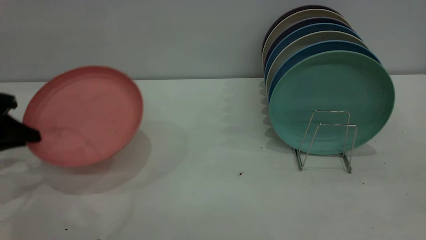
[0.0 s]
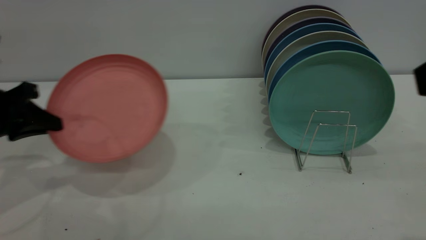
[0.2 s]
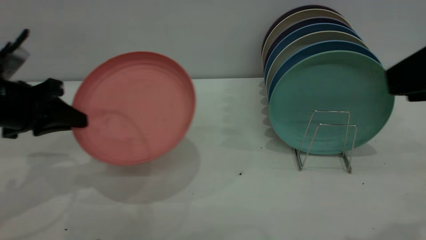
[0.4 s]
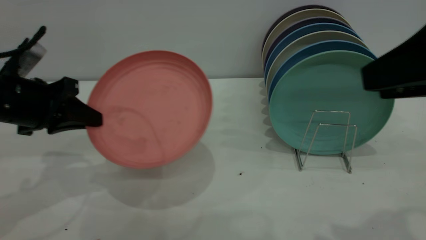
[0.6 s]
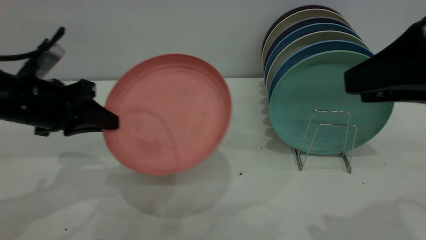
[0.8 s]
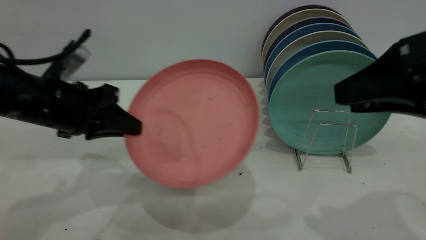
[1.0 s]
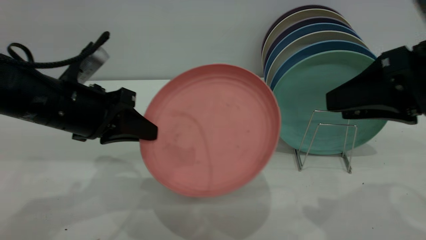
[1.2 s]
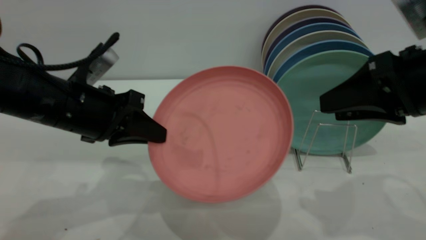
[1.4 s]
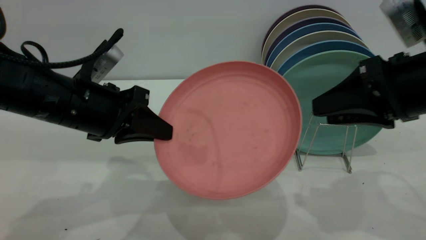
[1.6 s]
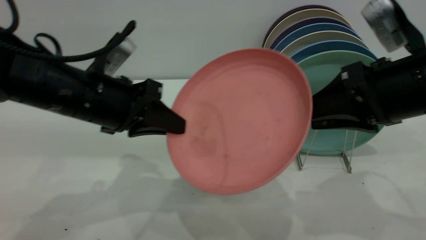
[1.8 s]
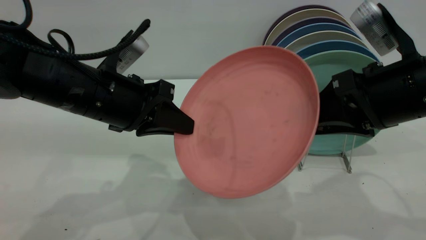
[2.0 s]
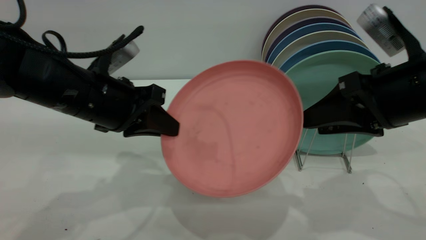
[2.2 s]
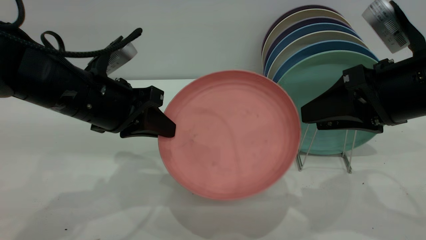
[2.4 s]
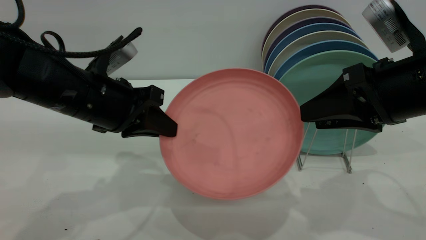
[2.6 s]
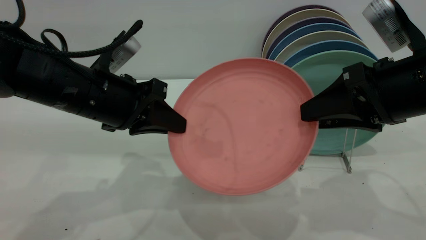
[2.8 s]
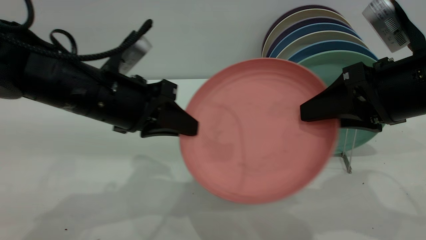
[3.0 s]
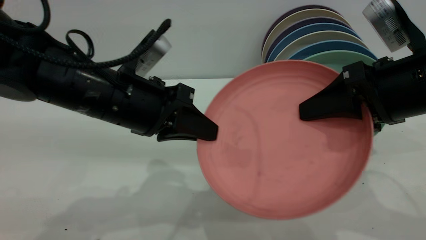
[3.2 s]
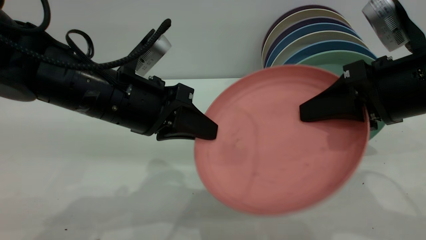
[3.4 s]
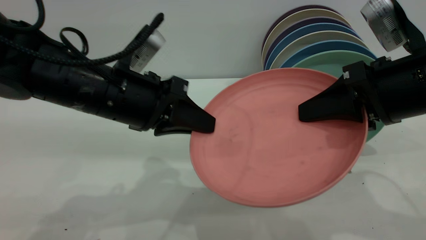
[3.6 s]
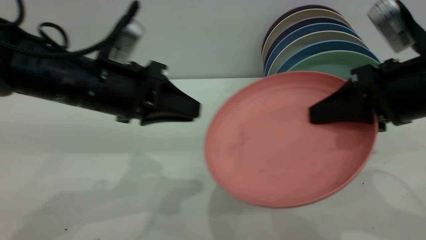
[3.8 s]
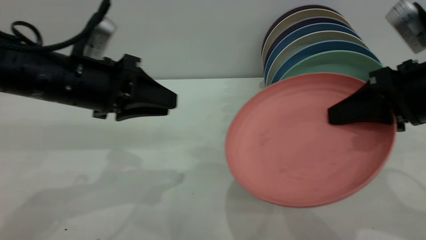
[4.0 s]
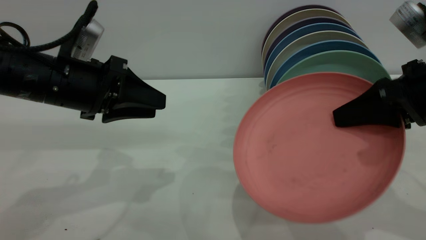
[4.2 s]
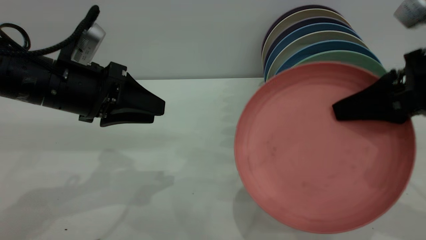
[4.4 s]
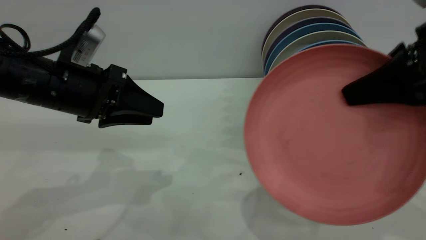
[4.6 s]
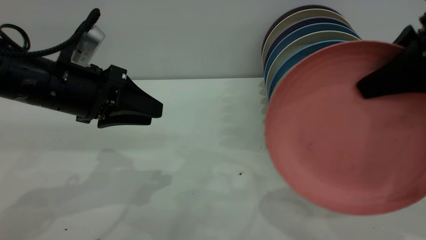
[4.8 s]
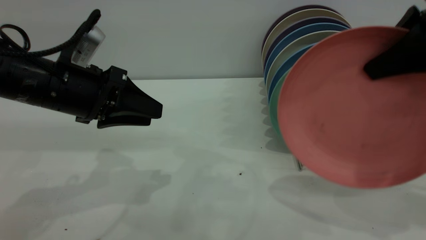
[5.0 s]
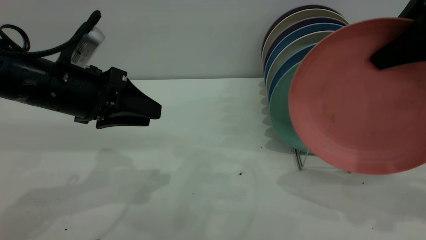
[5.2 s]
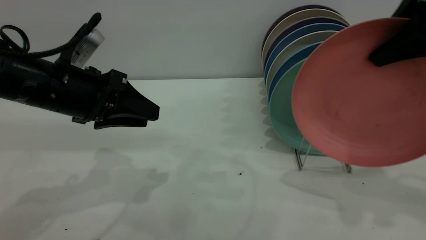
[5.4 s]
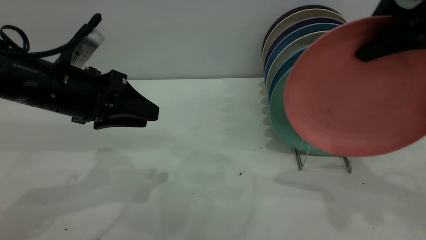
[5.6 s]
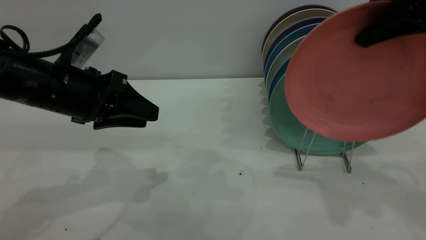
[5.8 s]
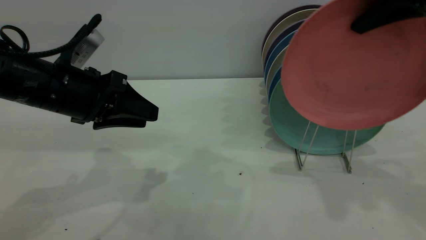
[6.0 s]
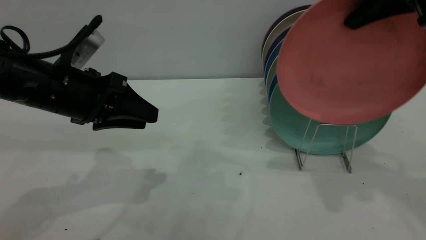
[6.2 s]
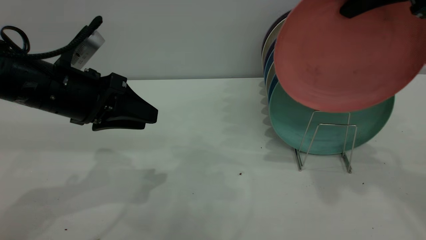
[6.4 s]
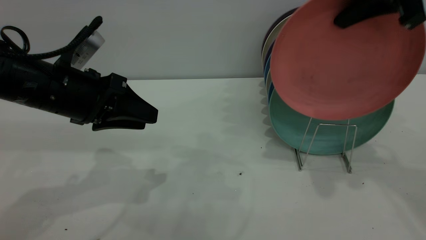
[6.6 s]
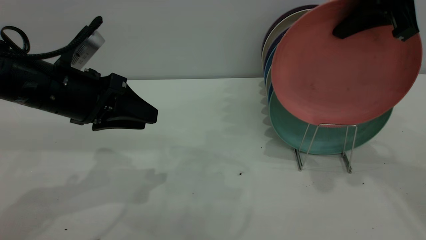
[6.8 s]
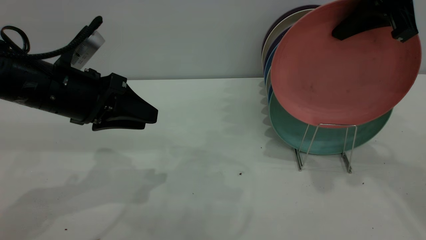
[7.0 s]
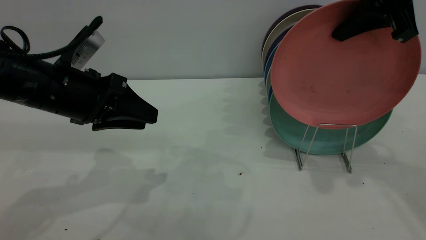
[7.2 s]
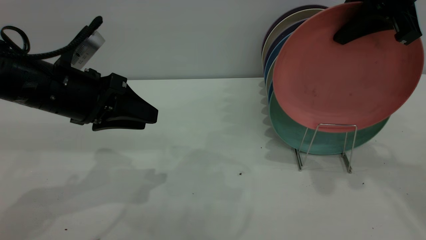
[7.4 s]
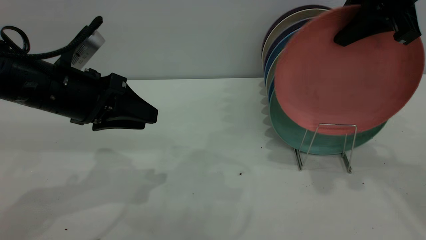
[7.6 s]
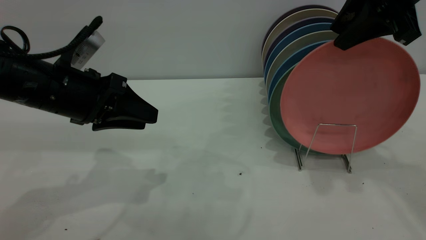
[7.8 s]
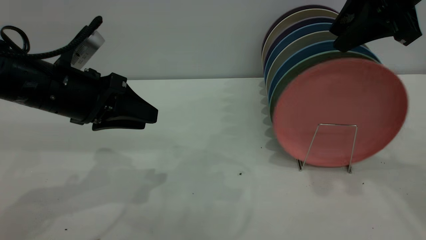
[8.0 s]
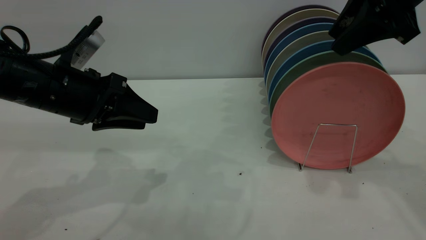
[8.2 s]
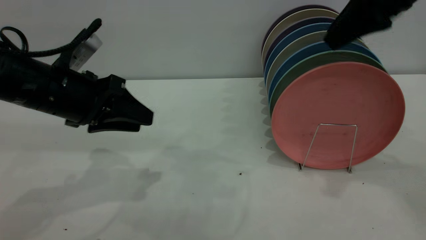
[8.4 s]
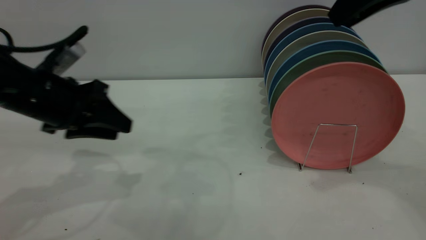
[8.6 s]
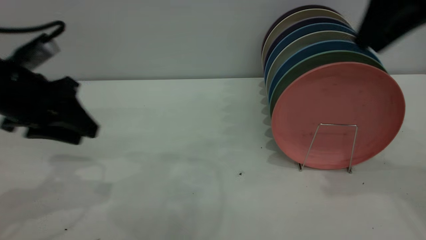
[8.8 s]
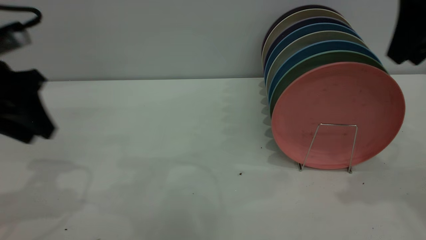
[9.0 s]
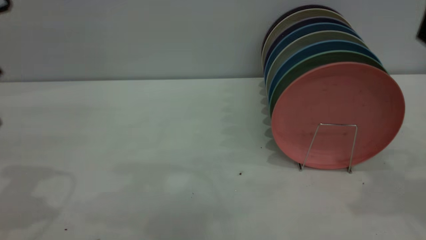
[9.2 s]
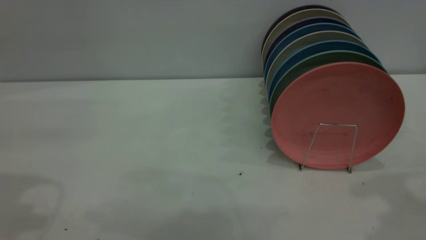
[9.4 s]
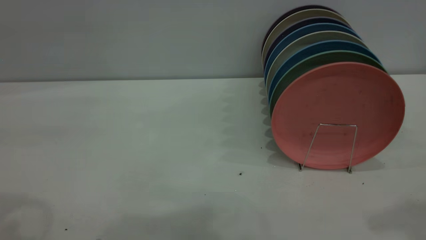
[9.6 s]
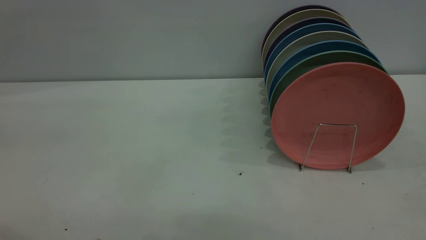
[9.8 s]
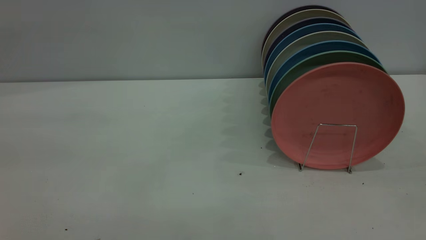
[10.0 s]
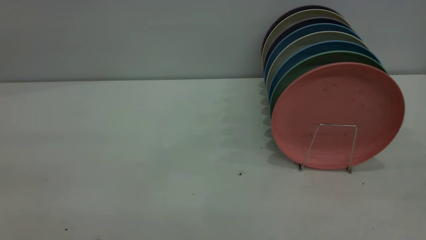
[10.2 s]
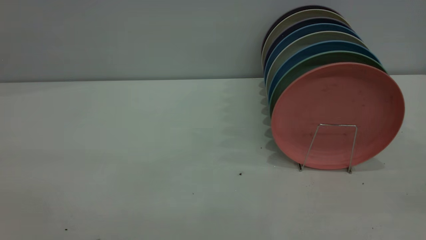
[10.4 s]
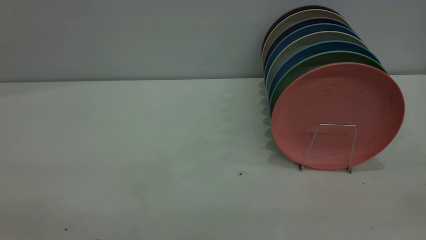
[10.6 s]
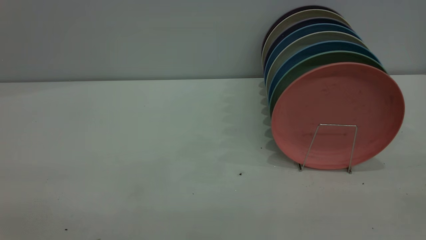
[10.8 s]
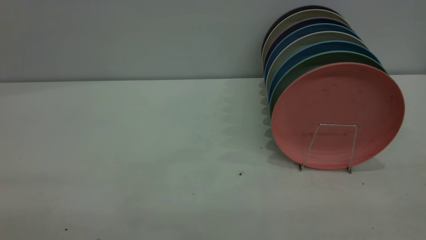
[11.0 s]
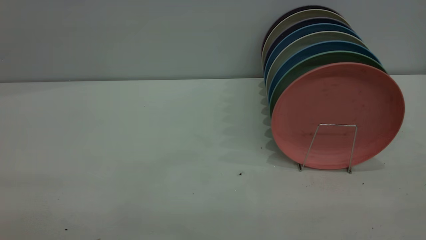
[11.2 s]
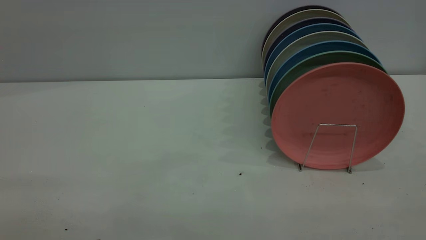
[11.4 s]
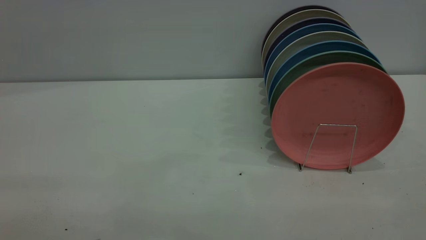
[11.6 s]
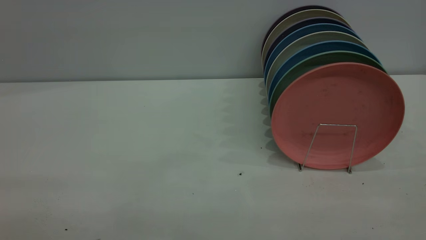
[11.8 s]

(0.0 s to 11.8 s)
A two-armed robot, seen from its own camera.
Task of the whole recording: put the plate on the plate rack.
Step, 0.0 s - 3.6 s: Pass the plate from the left gripper to the right gripper.
Step, 3.8 s - 8.0 s: Place the plate on the shelf.
0.0 s - 1.4 s: The left gripper heads to the right, covering about 20 cm; the right gripper moves forward and downward, some 15 cm.
3.0 s - 4.4 s: The right gripper closes. The left gripper moves to the left, approximately 5 cm, and opens up.
4.4 s - 6.0 s: The right gripper travels upward and forward by approximately 15 cm.
6.0 s - 7.4 s: The grippers make only small movements.
7.4 s - 8.8 s: The right gripper opens up. The left gripper shifts approximately 5 cm to the left.
8.8 s - 10.4 s: The right gripper heads backward, covering some 30 cm; the left gripper heads backward and upward, covering approximately 35 cm.

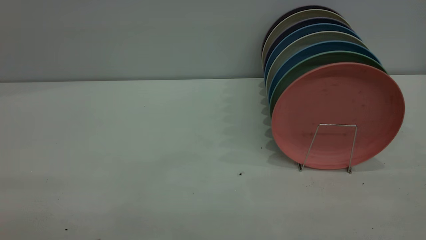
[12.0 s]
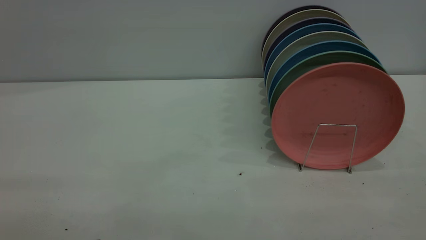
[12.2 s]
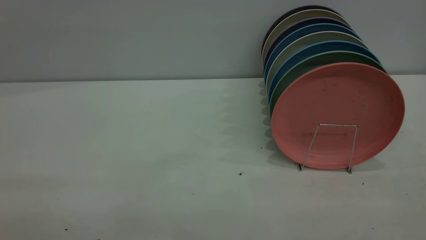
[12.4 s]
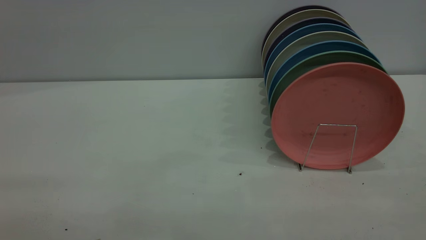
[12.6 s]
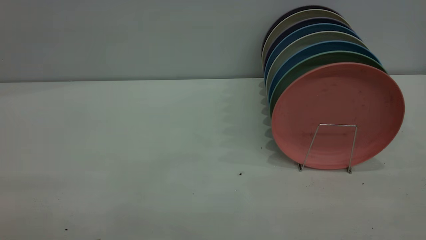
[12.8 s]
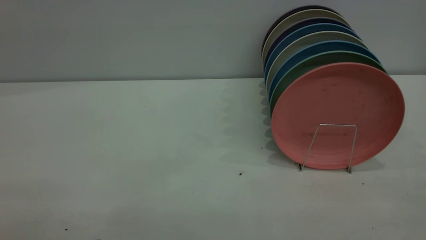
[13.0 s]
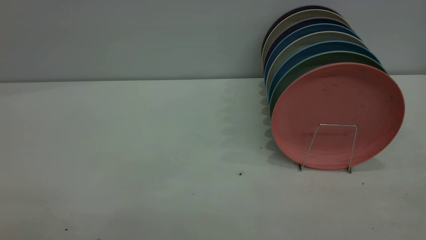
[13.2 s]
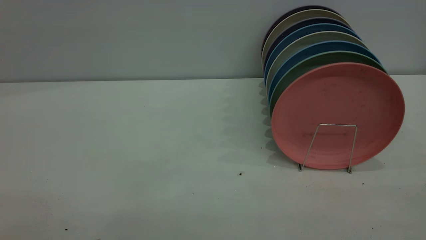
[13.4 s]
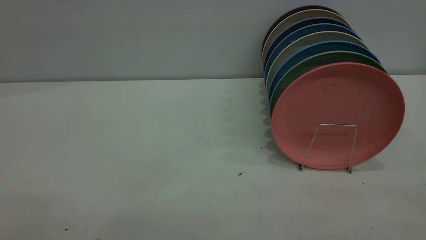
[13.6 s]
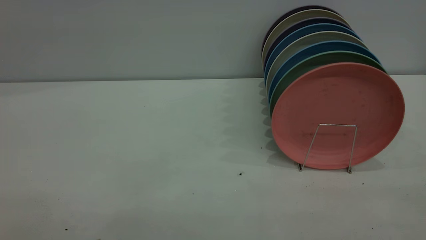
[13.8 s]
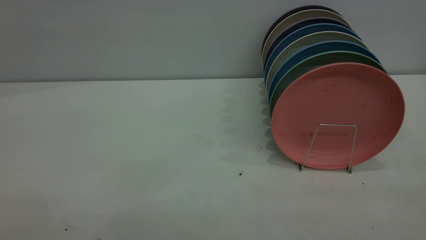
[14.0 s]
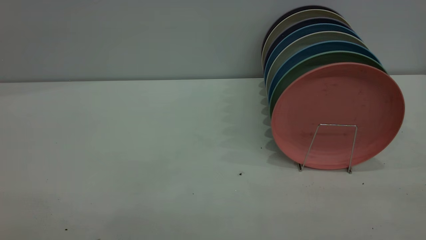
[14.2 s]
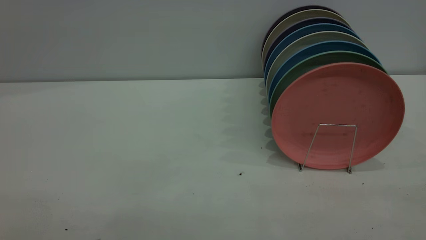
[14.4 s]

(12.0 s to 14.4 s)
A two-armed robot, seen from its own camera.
Task of the whole recording: put the plate on the plate rack.
13.2 s - 14.4 s: Both grippers stay put.

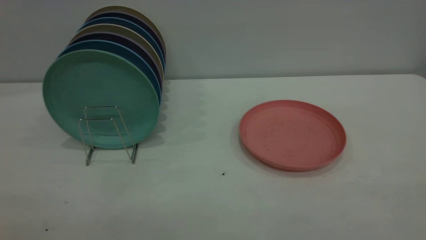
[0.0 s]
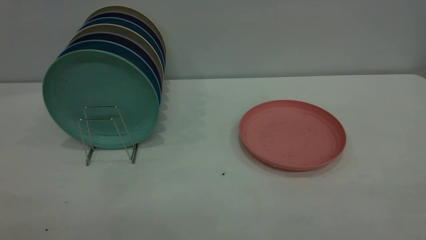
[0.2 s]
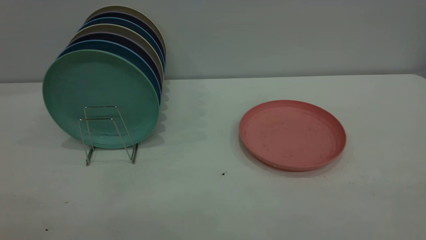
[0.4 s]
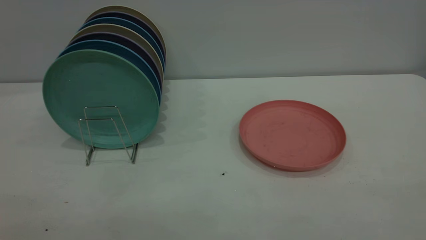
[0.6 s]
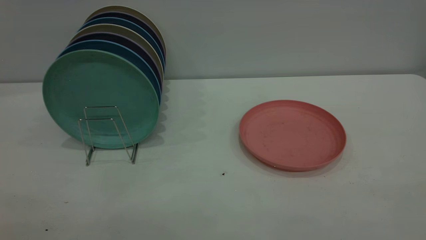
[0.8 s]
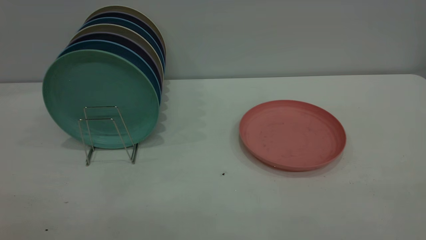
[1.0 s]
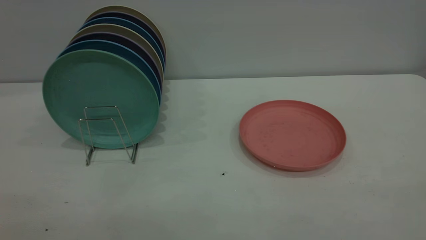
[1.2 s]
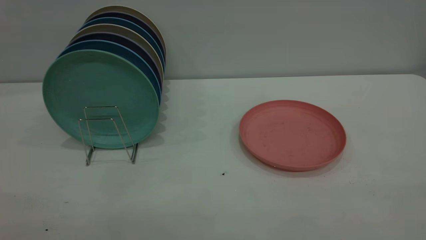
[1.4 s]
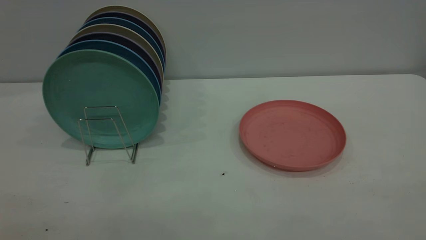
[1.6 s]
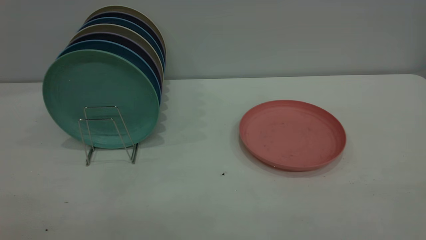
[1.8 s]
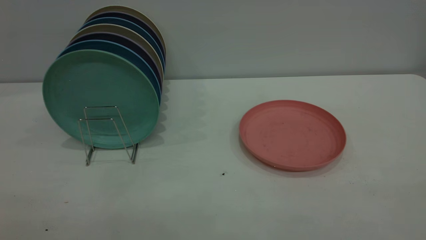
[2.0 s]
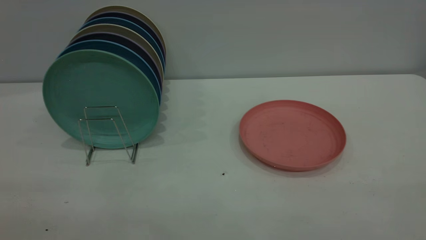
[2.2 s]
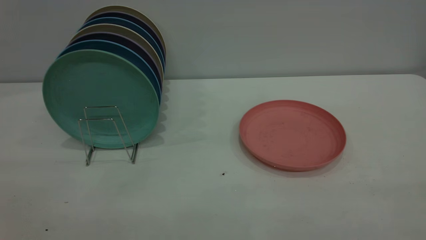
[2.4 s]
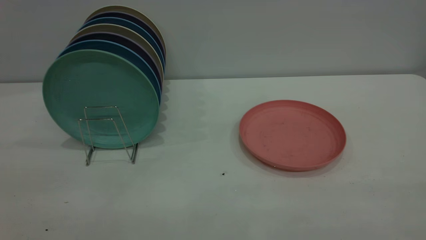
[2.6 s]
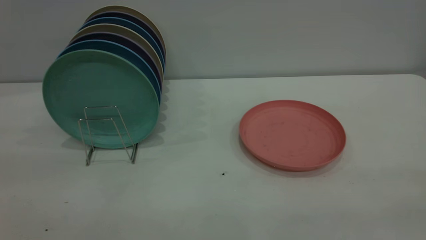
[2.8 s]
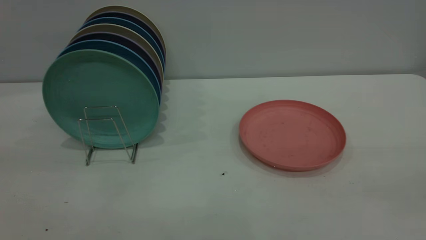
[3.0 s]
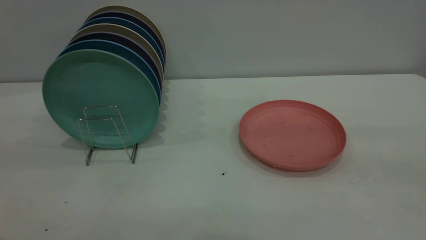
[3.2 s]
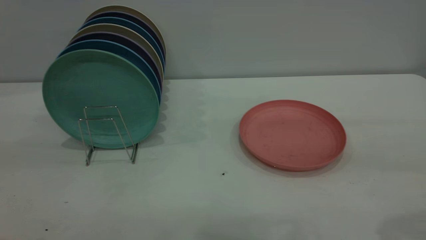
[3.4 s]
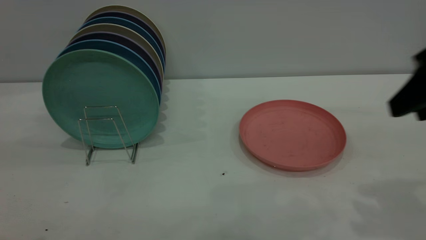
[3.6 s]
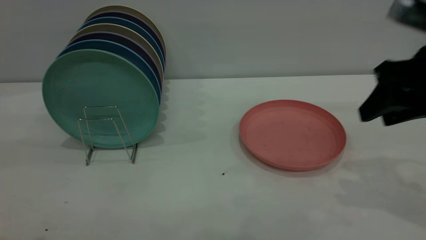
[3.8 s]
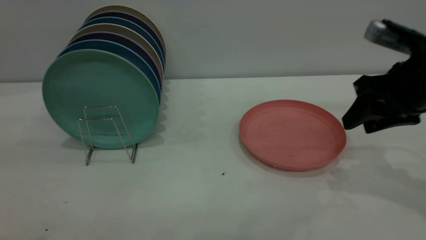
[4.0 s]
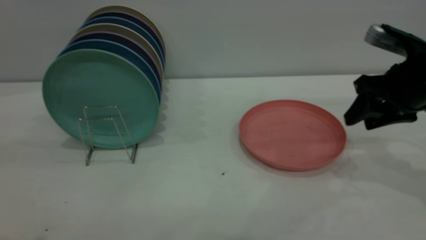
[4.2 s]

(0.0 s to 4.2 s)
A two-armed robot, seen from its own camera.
Task of the whole recording: the right gripper grasp the pink plate, the right gripper pass the pink plate to the left gripper, and the left gripper place the pink plate on the plate rack.
0.0 s - 1.4 s: Both grippers stay about where they are.
2.8 s - 4.2 s: The right gripper travels forward and downward by some 40 cm.
